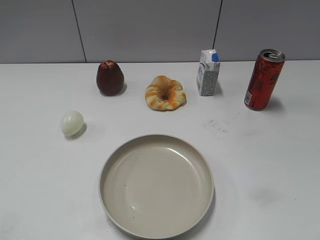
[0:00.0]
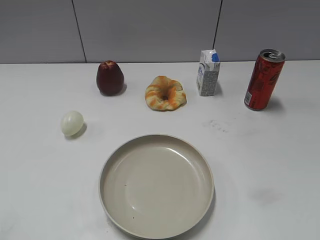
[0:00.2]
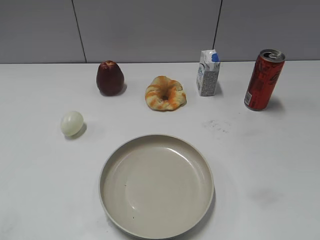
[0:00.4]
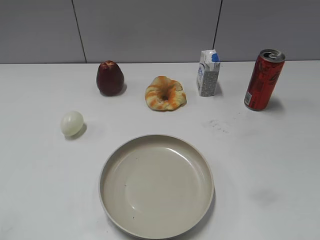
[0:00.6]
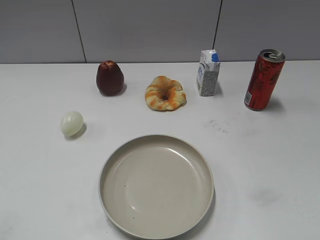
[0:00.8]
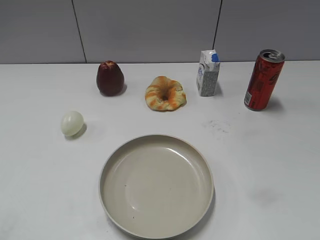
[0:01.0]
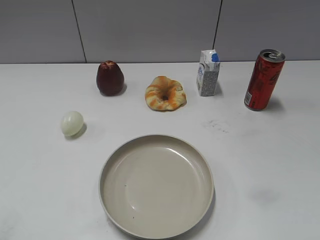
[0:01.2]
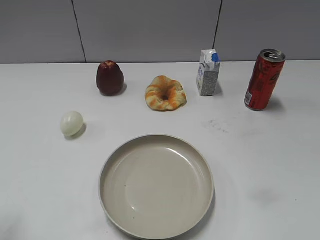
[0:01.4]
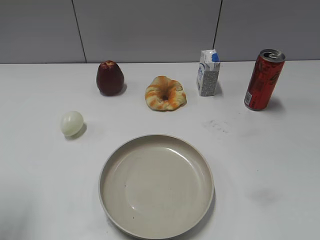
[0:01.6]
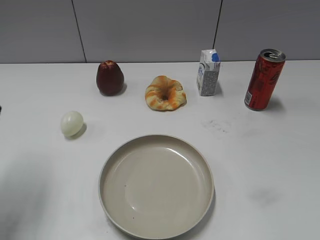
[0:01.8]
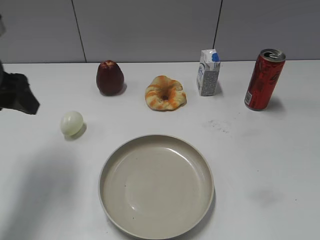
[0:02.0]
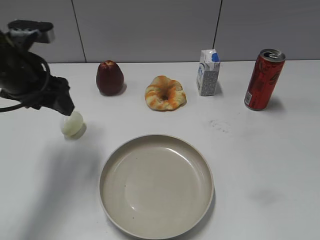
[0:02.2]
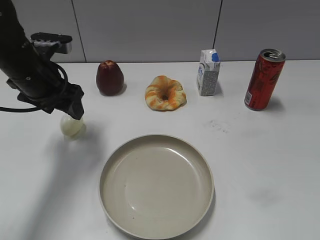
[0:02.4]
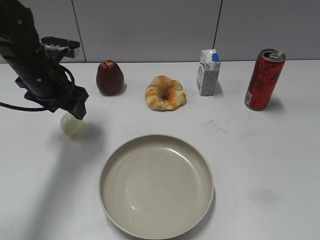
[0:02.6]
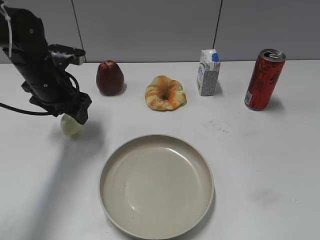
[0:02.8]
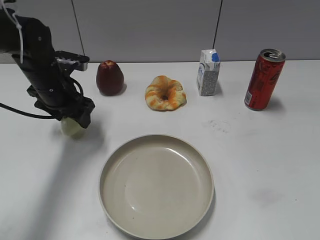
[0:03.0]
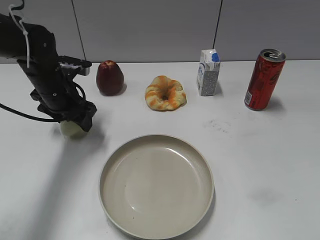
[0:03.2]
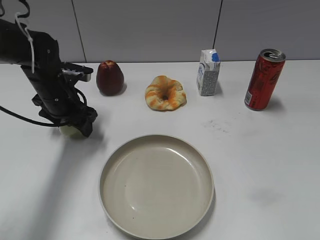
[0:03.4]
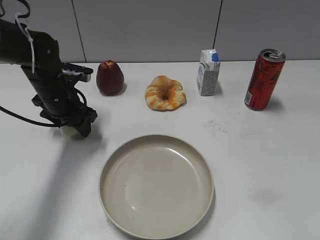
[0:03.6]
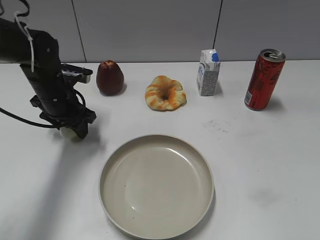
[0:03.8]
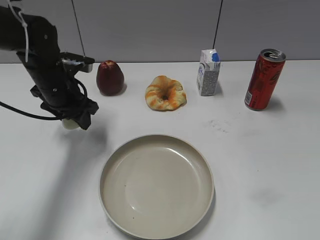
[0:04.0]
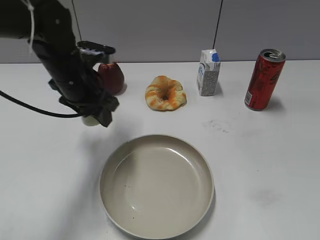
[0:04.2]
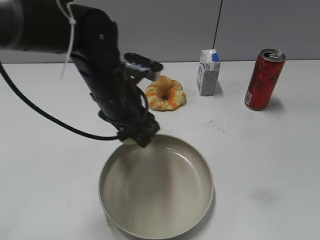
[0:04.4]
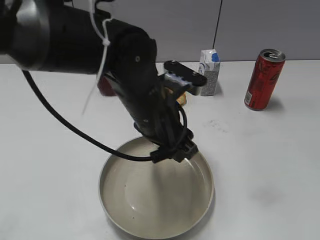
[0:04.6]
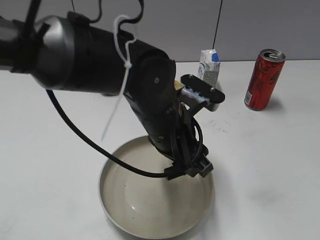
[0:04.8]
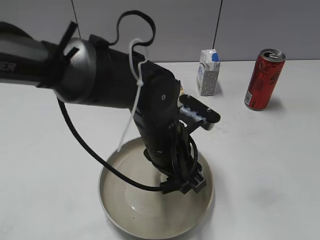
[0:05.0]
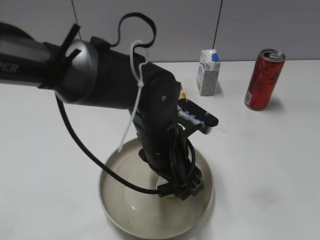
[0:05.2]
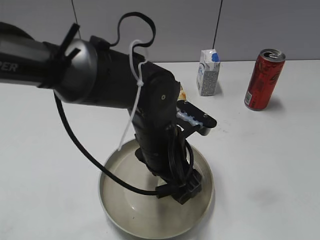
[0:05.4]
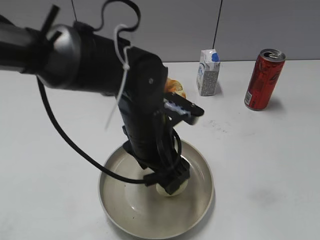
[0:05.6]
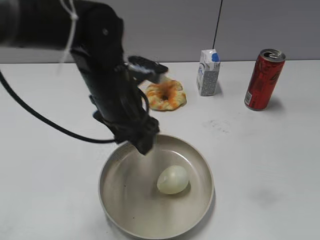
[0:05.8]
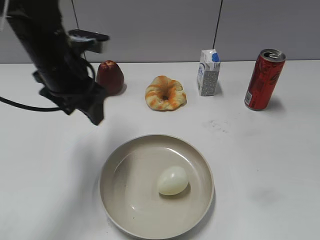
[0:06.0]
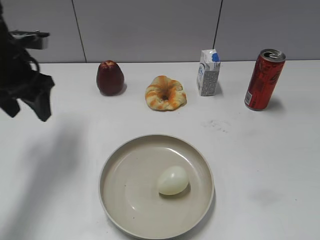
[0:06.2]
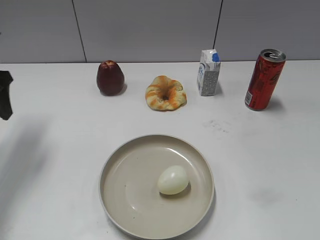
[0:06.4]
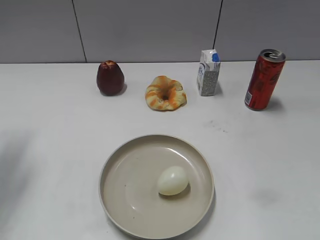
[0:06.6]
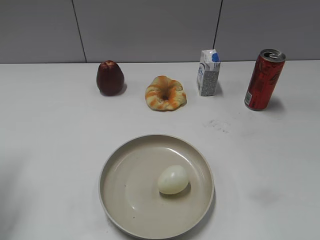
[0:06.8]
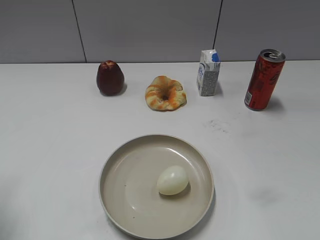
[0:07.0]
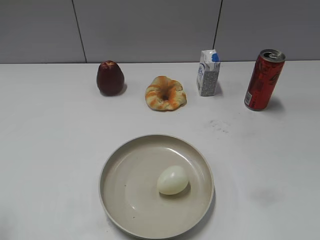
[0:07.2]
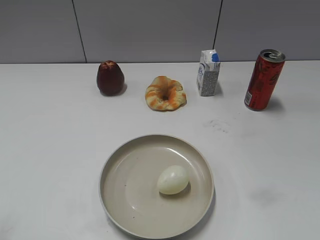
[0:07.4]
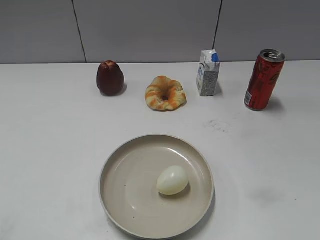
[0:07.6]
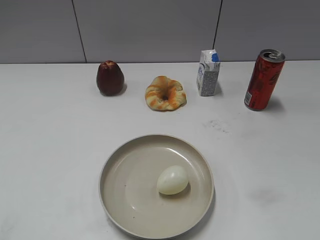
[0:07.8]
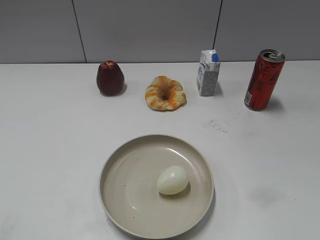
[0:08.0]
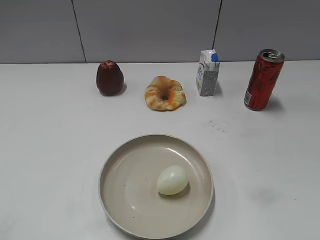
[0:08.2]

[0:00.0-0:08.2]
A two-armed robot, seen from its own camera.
Step, 0:00.8 to 0:03.8: Grasp the egg with left gripper.
Step, 0:04.0 to 0:05.4: Place the egg on the plate with left gripper.
0:01.6 to 0:03.2: The left gripper travels forward, downward and to the right by roughly 30 cm.
0:03.2 to 0:05.0: The left gripper goes about 25 cm to the right and backward, and closes up.
0:05.0 to 0:06.6: The left gripper moves to the left, roughly 35 cm, and opens up.
0:06.6 to 0:08.2: The left gripper heads backward, covering roughly 30 cm.
